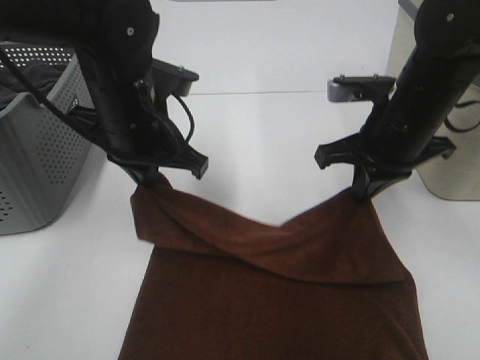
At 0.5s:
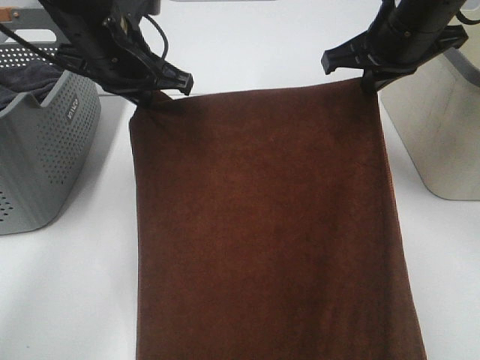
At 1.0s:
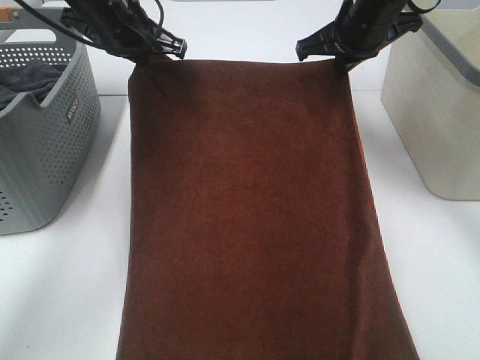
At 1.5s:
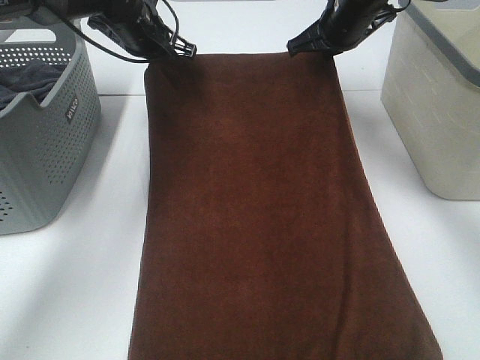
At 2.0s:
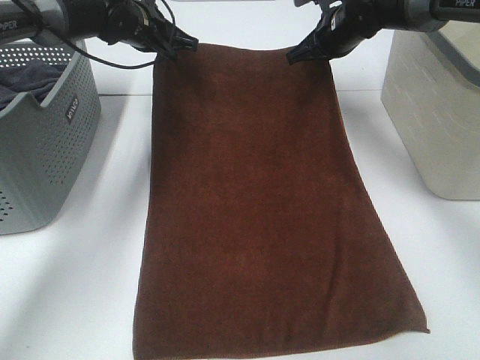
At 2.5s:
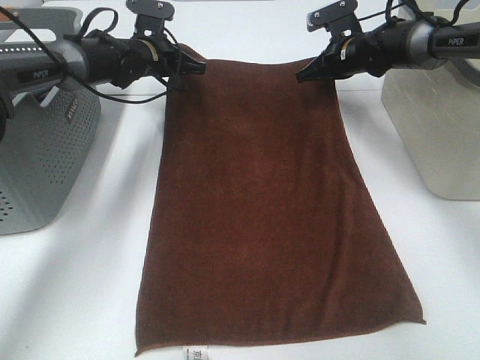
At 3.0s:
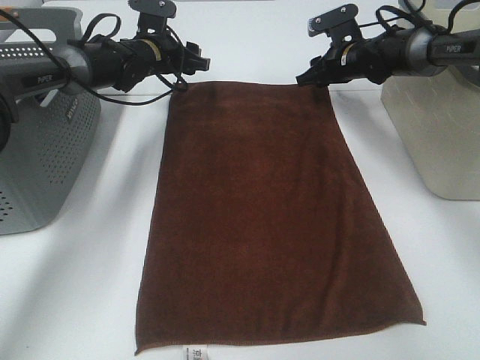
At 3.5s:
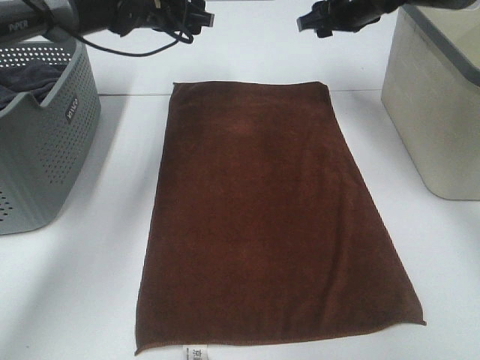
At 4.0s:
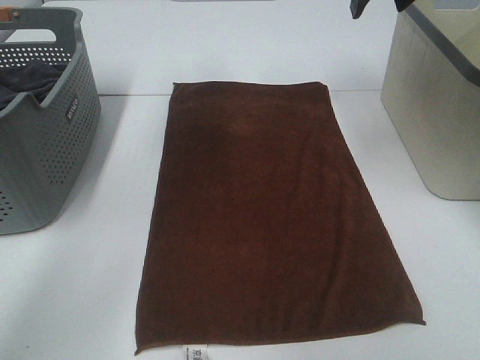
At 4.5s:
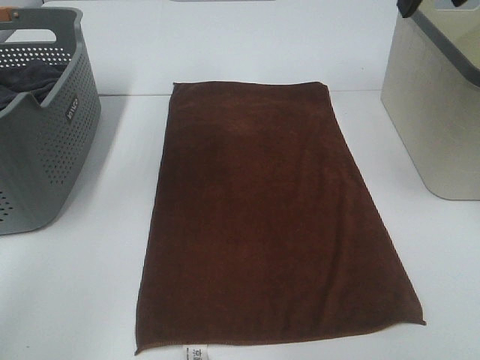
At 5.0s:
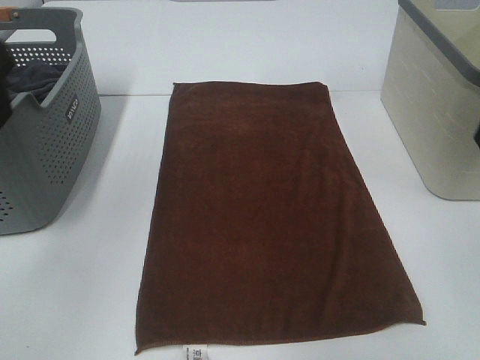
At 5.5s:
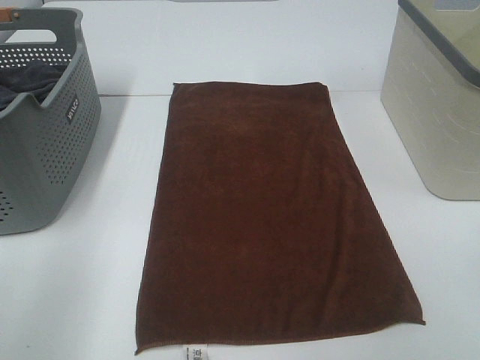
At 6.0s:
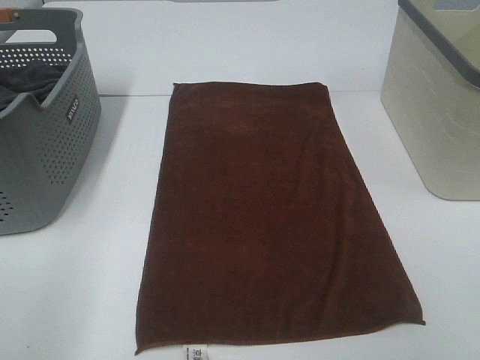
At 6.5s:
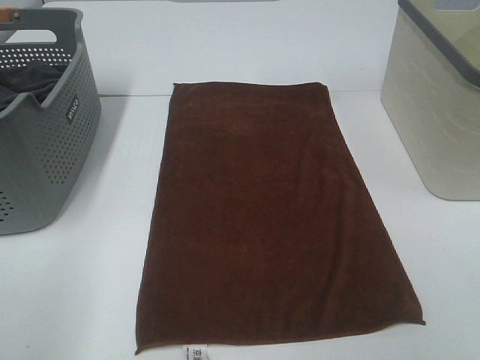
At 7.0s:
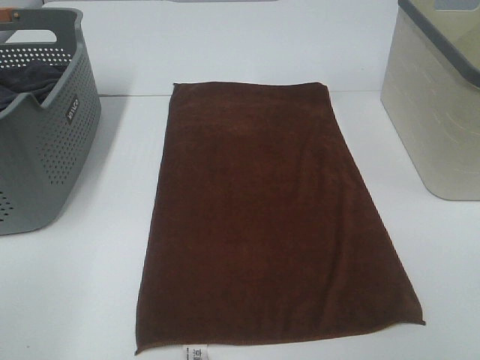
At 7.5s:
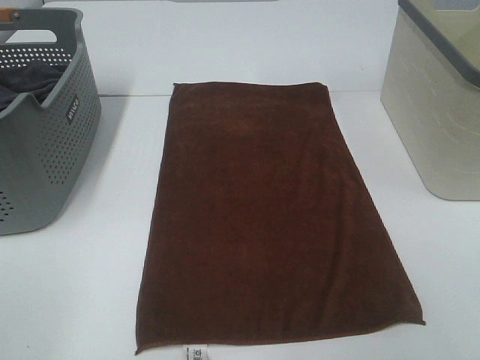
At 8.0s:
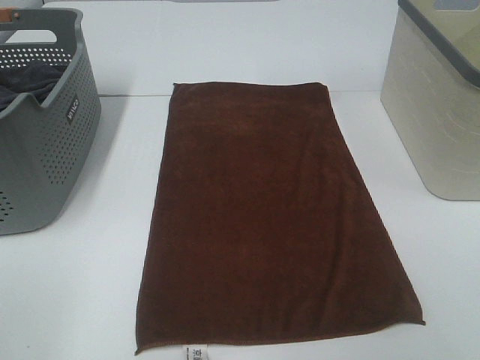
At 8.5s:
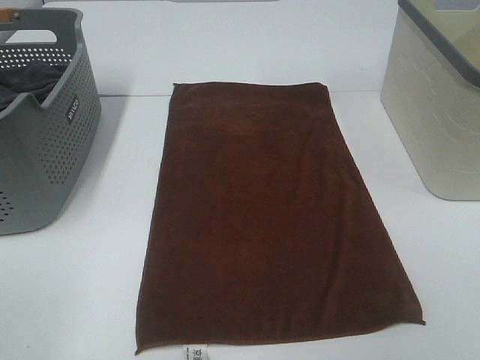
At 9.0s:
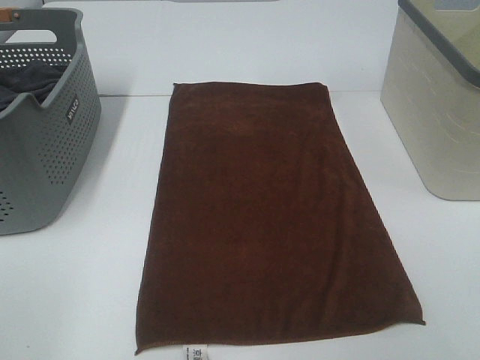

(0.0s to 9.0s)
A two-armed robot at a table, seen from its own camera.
Task of the whole recording: Remove the towel and place it.
0.0s - 2.0s: Both grippers travel together forward, roughly 20 cm.
2.0s - 4.5s: Both grippers travel together upward and backward, about 30 cm. The left gripper opens up. Meanwhile the right gripper opens.
4.5s - 7.0s: The left gripper moves backward and downward, about 35 cm, while the right gripper moves backward, about 30 cm.

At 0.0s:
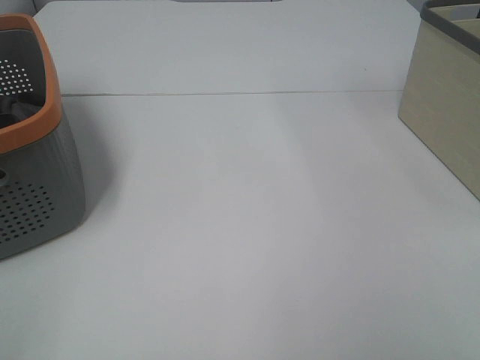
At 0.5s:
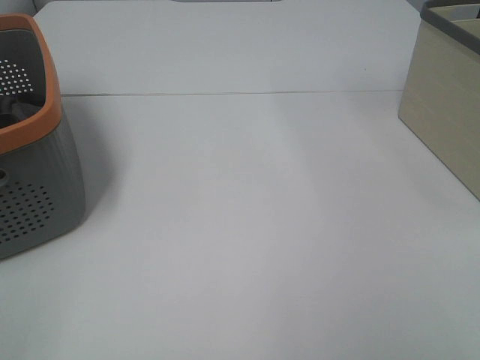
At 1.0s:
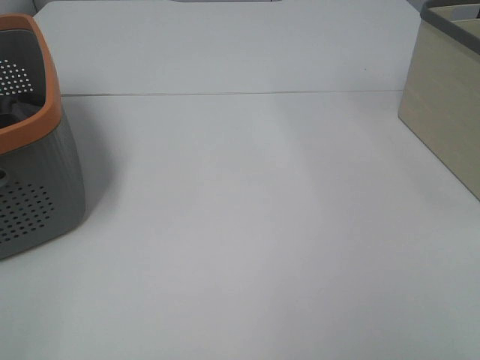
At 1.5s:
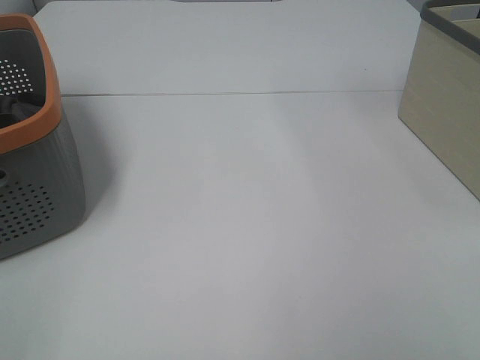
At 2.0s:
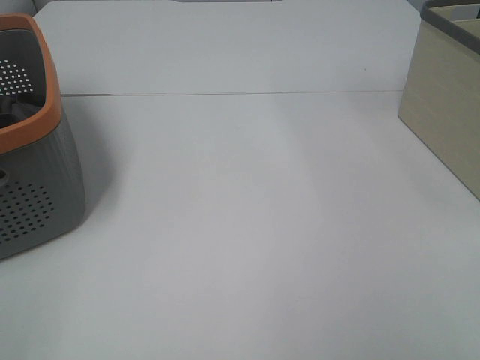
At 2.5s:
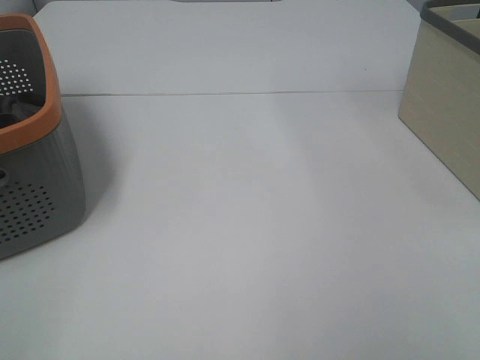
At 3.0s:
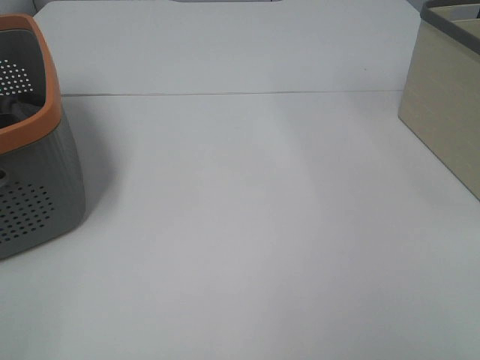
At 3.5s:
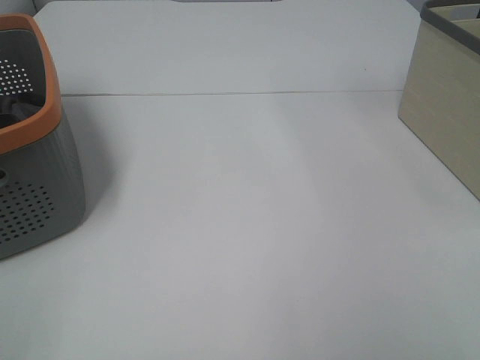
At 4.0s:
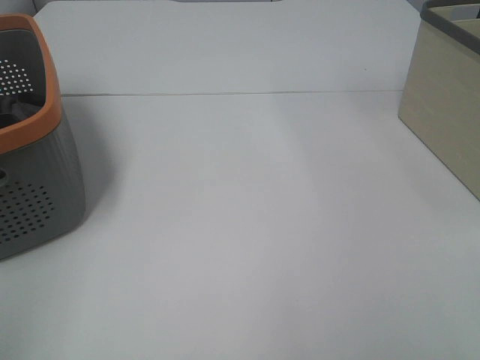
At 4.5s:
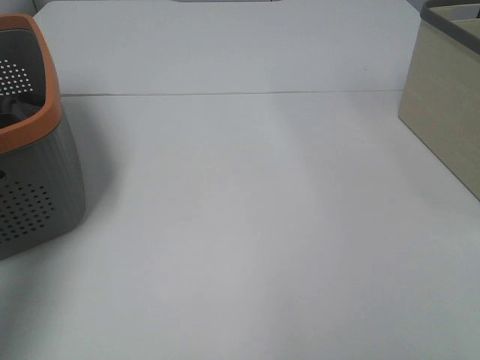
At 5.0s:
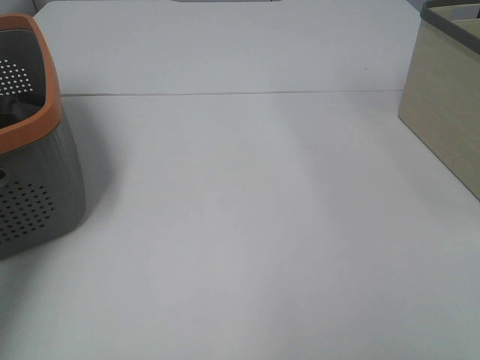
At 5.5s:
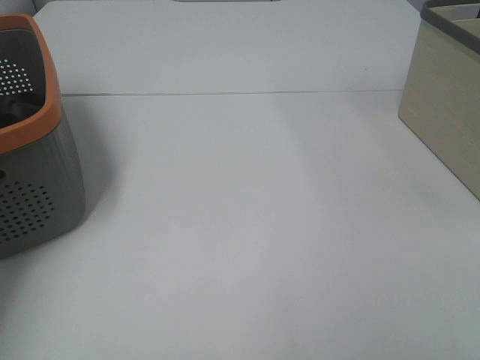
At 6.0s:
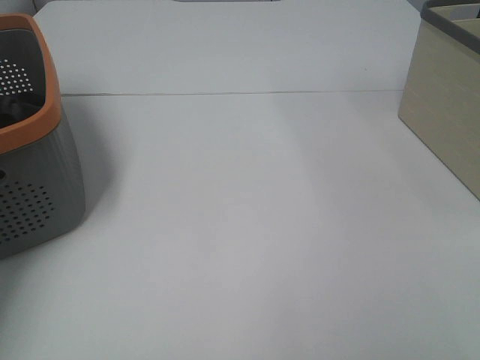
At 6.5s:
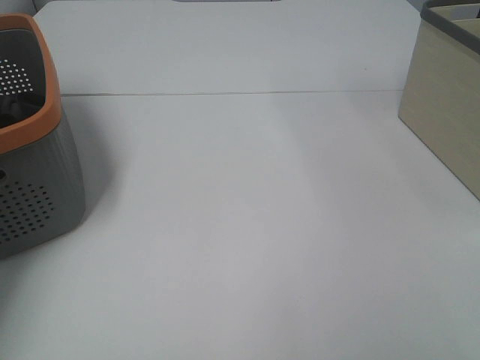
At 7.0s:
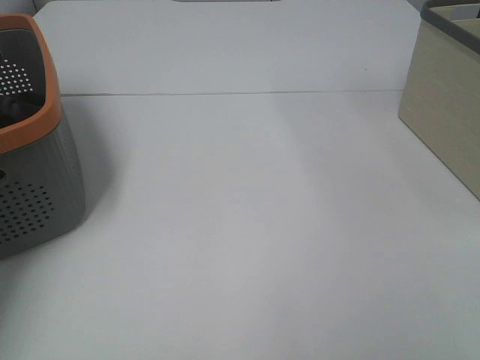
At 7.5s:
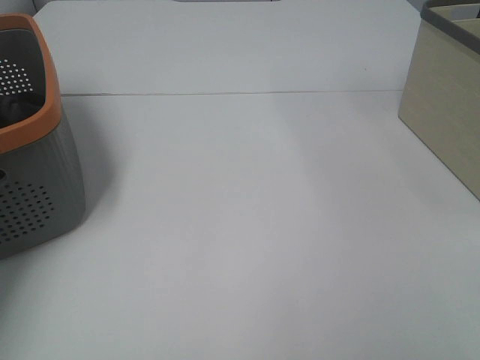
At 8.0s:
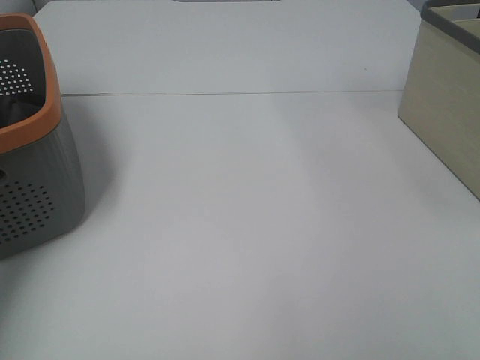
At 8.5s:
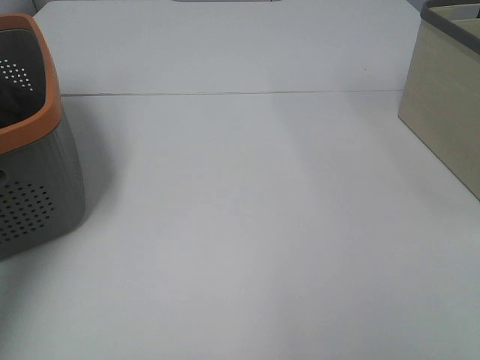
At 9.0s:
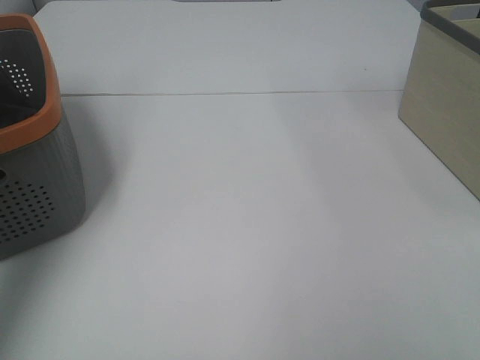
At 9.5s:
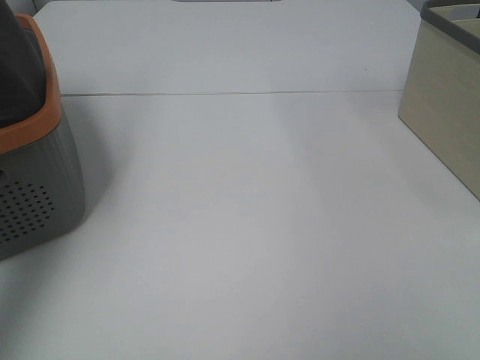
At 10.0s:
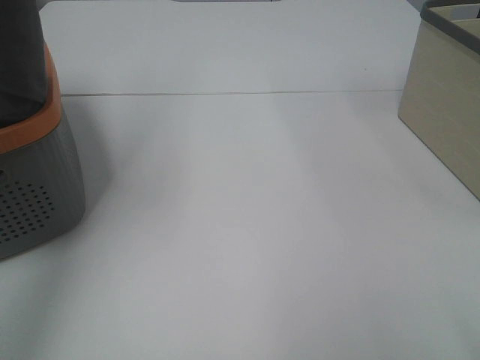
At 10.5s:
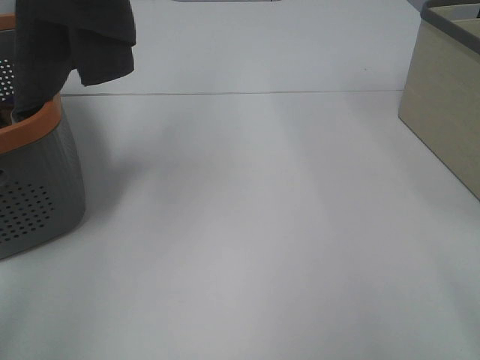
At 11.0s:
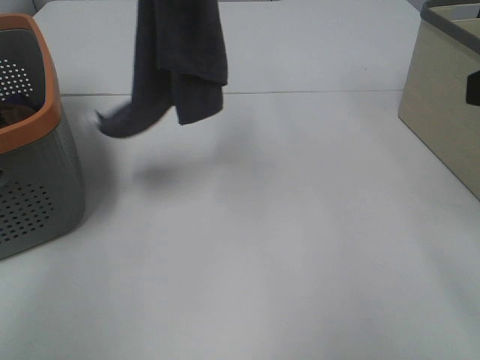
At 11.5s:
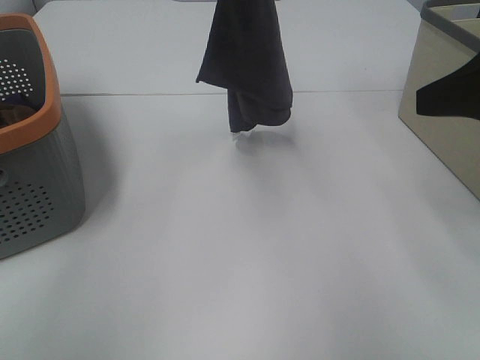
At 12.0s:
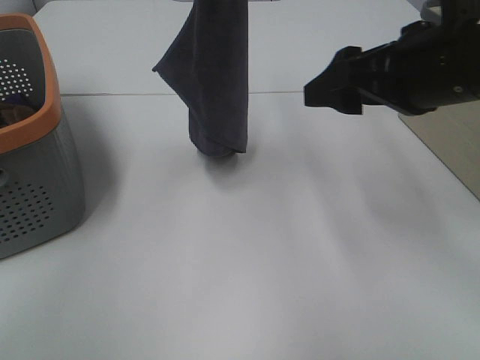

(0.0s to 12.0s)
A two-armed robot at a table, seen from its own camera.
Task of the whole recording: Remove the towel and place it.
0.0s - 2.0s: Both grippers stay put.
4.0s - 6.0s: The left gripper travels forward by about 40 cm, and closes its fingers.
8.0s - 10.0s: The left gripper heads upward, to the right and backward, covering about 25 cm.
10.0s - 12.0s: The left gripper heads to the right, downward and forward, covering about 25 cm. Meanwhile the right gripper is displaced forward by some 25 cm.

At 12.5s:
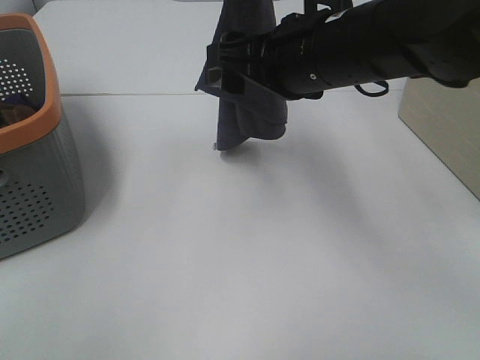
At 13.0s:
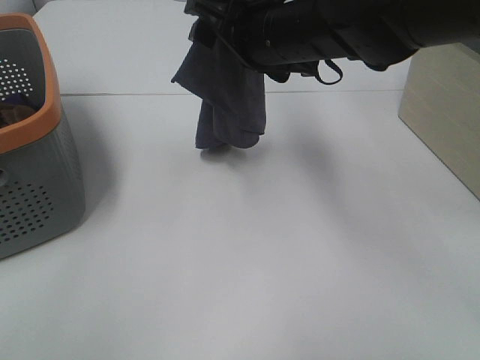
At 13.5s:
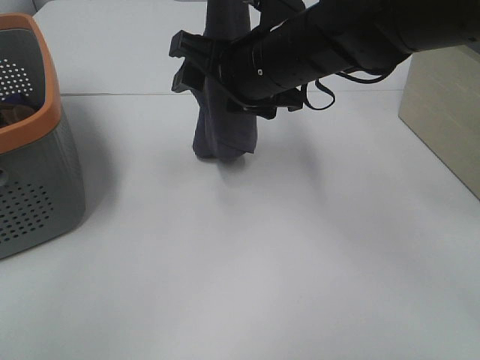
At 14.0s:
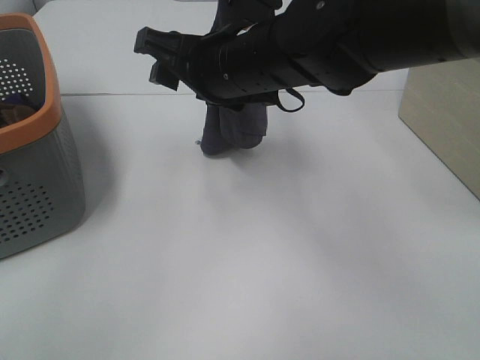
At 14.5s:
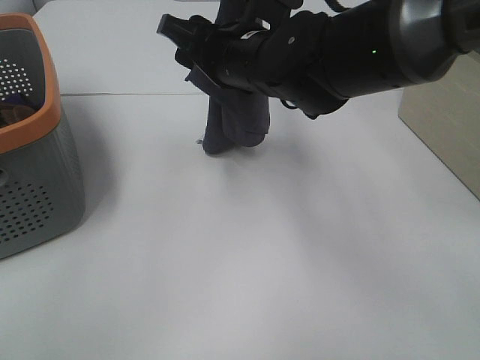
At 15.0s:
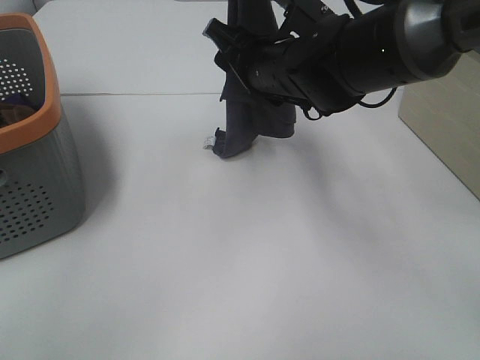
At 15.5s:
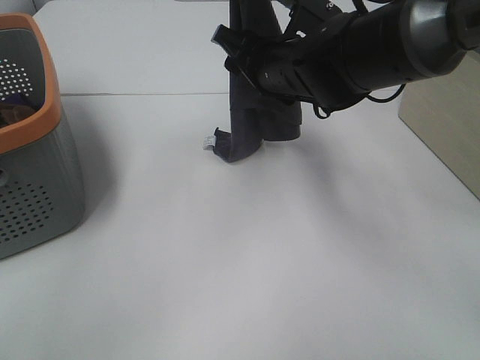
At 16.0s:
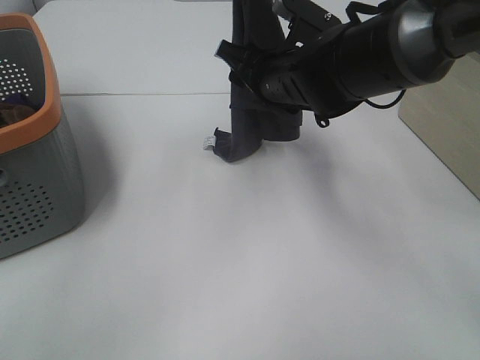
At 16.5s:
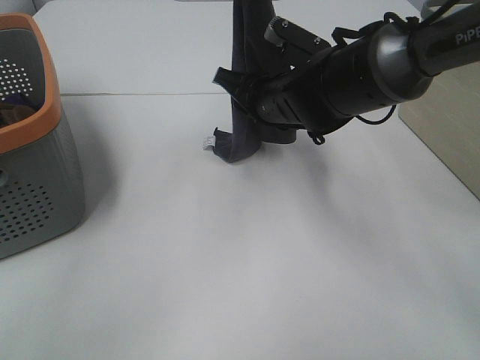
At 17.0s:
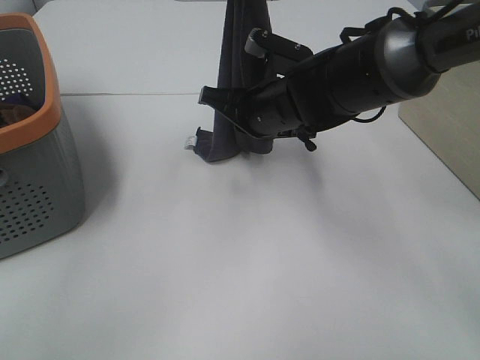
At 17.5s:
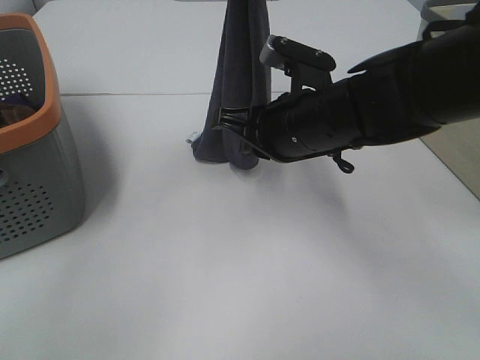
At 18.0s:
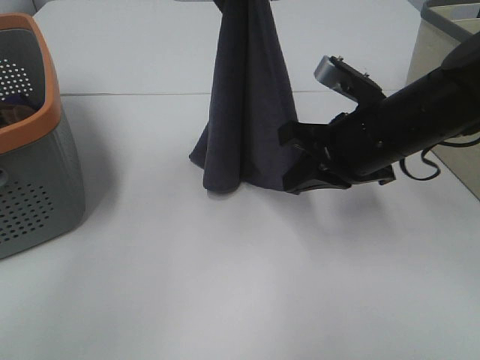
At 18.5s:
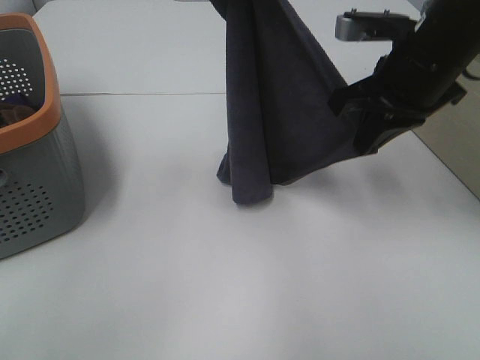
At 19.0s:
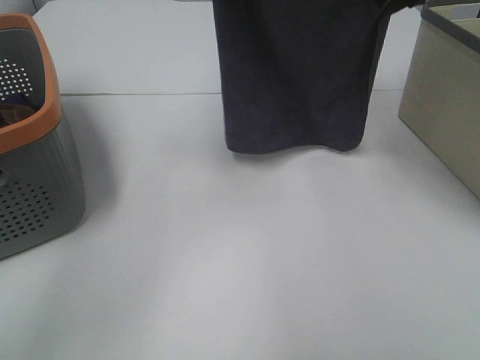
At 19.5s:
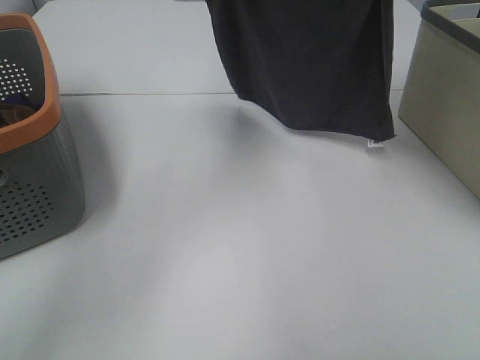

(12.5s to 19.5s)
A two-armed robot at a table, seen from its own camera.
Task of the whole recording: Remove the towel and place it.
Step, 12.5s - 16.0s: Right hand: grab a corner of the grey towel and straighten it.
Step, 16.5s - 19.0s: Left hand: spread the grey towel flat on the table.
Step, 16.5s - 19.0s: Right hand: spread the grey towel flat on the table.
12.5s - 14.5s: The right gripper goes about 10 cm to the left and forward.
14.5s - 16.0s: The right gripper shifts by some 5 cm.
16.0s - 17.5s: The right gripper goes some 10 cm backward, and closes up.
17.5s - 19.5s: The right gripper goes roughly 25 cm upward, to the right and forward, while the left gripper shifts about 5 cm forward.
